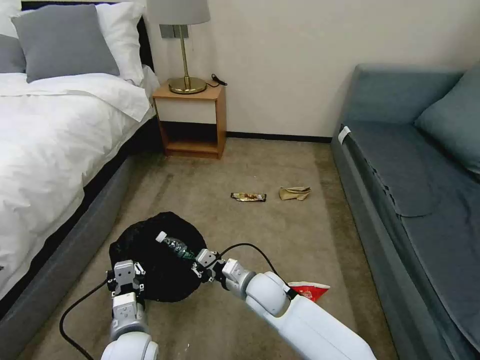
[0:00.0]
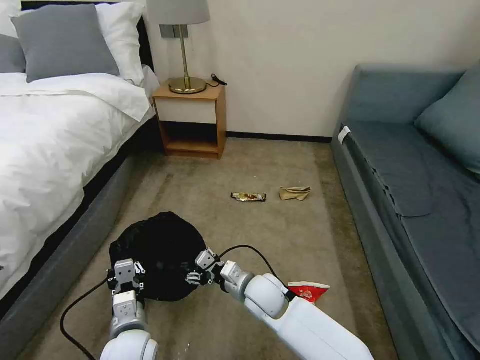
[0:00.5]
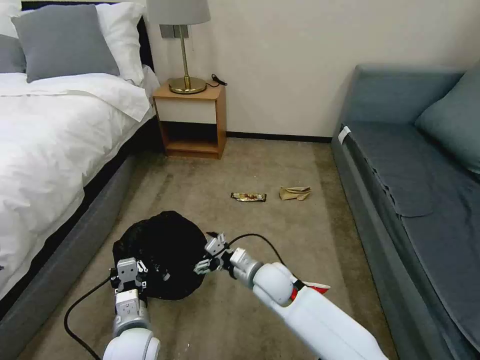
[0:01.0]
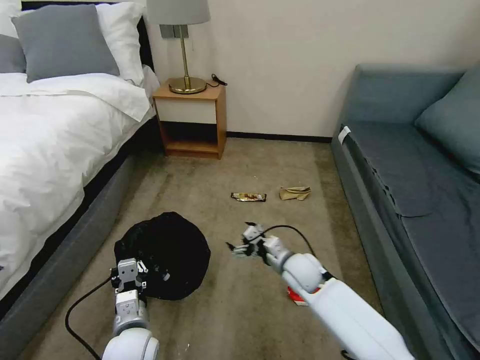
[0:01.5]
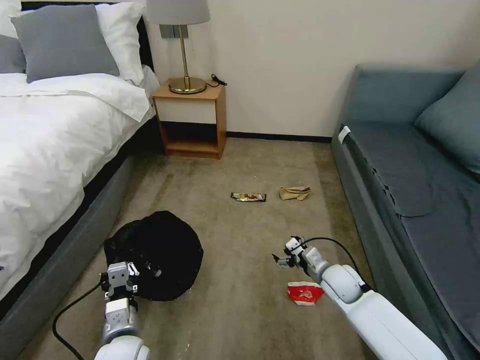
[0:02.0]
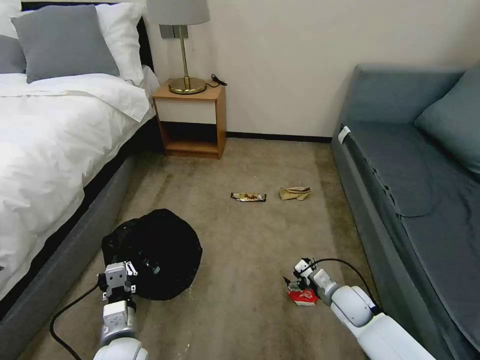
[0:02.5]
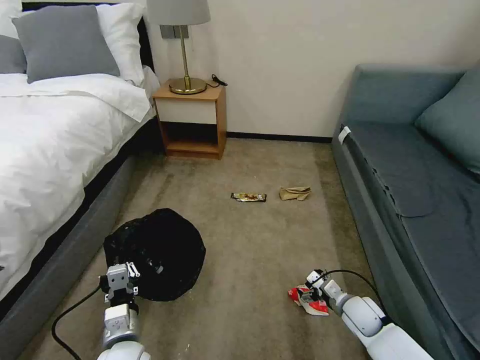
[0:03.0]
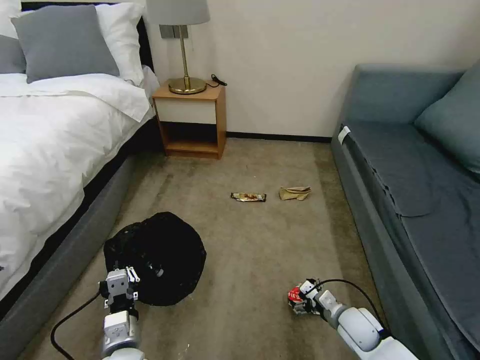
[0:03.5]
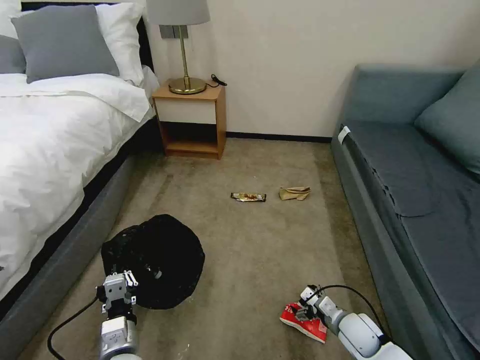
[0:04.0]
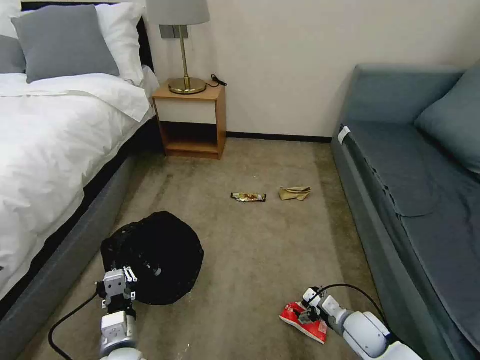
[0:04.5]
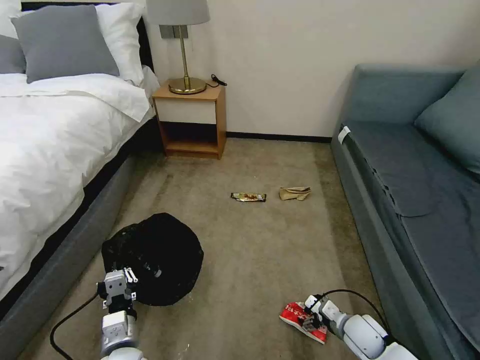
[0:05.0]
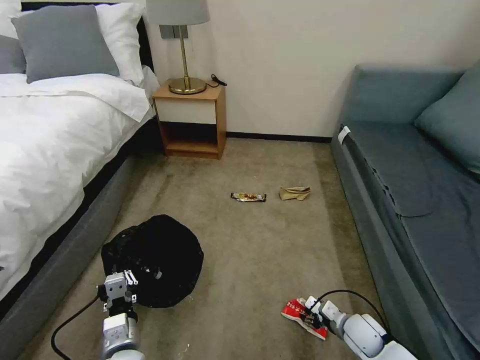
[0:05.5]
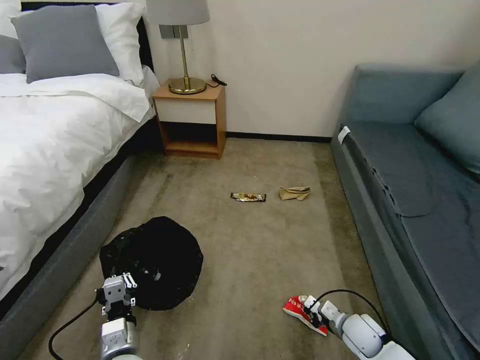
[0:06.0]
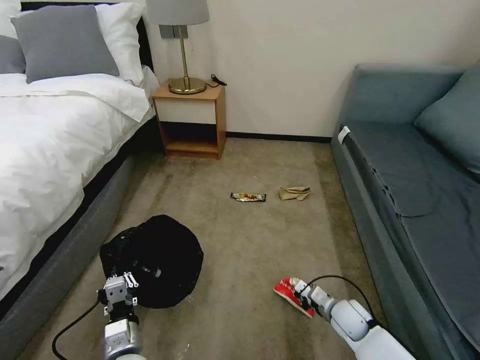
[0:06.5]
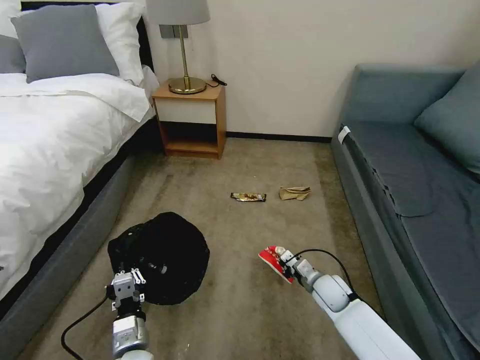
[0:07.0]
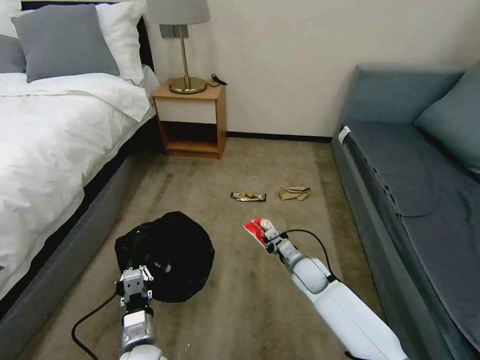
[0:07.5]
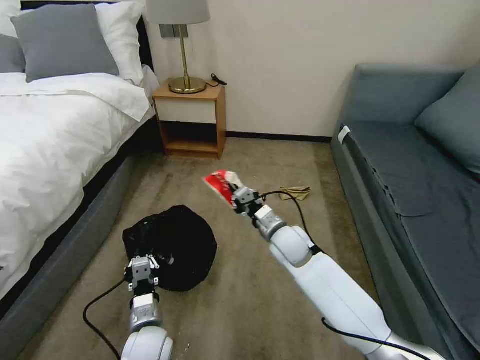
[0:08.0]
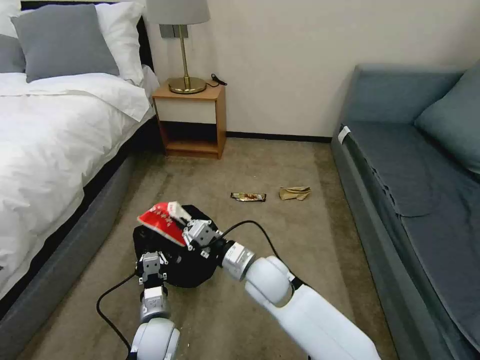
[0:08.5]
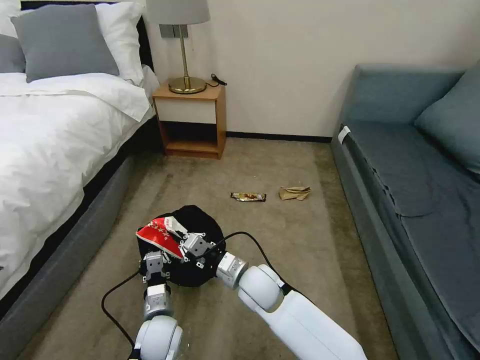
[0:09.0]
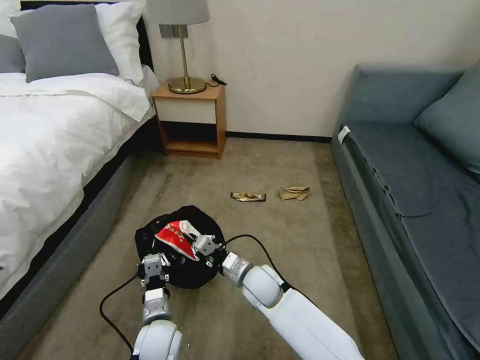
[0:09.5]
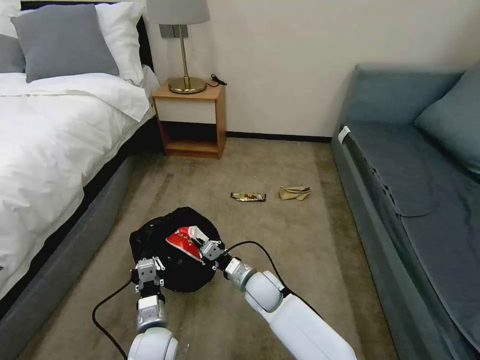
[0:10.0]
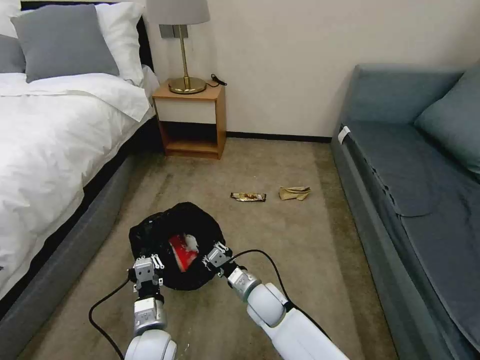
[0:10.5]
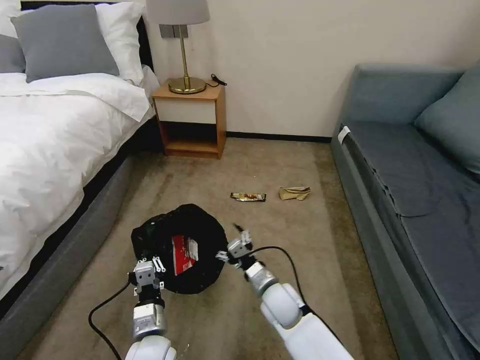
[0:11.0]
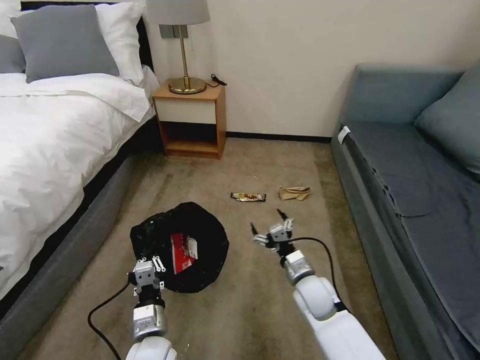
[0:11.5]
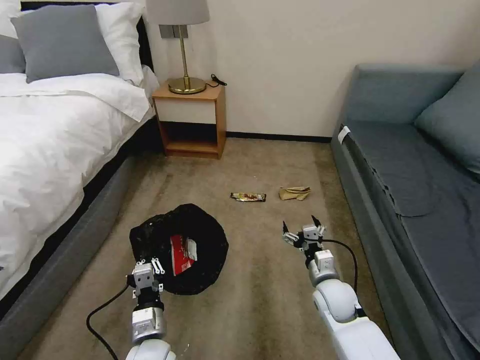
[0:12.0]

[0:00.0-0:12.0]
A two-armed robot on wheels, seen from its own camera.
Task of the whole recording: Pick up the trash bin, then pick up the garbage on the floor and place it into the trash bin.
0:00.0 to 0:02.0: The right gripper goes approximately 20 cm to the right, and opens.
0:02.0 to 0:04.0: The right gripper goes approximately 15 cm backward and downward.
0:04.0 to 0:06.0: The right gripper closes its fingers.
0:06.0 to 0:08.0: The right gripper is displaced to the left, upward and forward by some 30 cm. The left gripper goes roughly 5 cm forward.
0:08.0 to 0:10.0: The right gripper goes some 15 cm downward, backward and to the left.
0:10.0 to 0:12.0: The right gripper moves to the right, some 15 cm, and opens up.

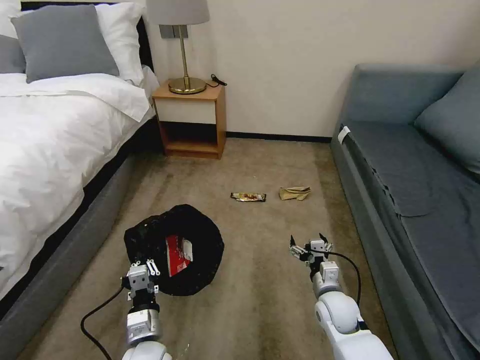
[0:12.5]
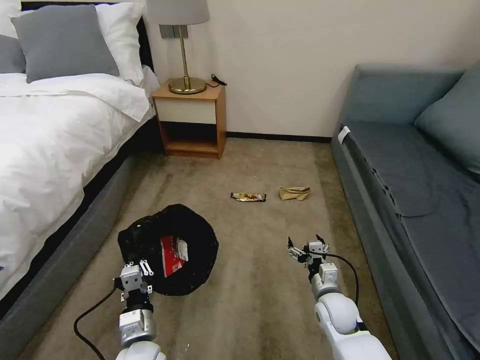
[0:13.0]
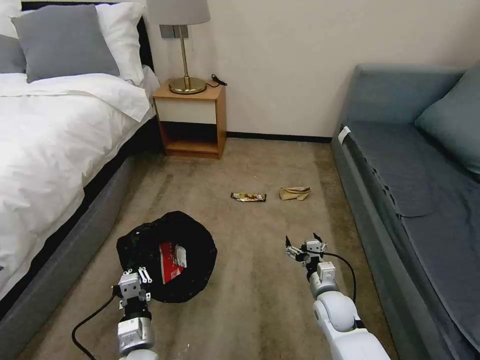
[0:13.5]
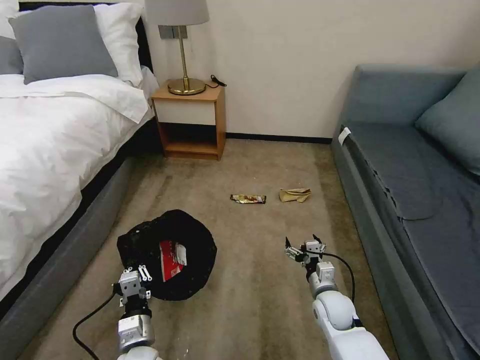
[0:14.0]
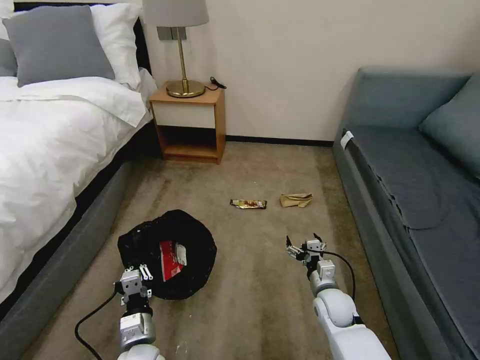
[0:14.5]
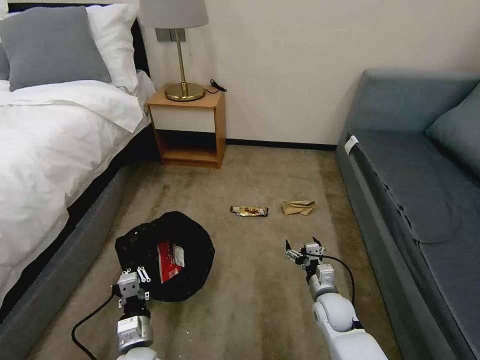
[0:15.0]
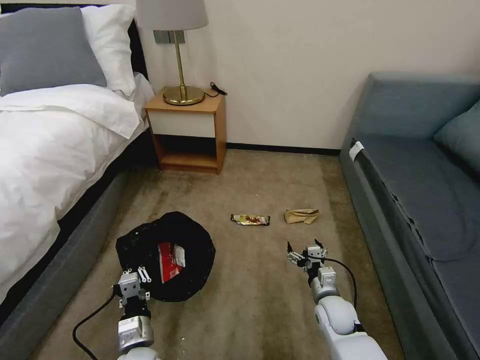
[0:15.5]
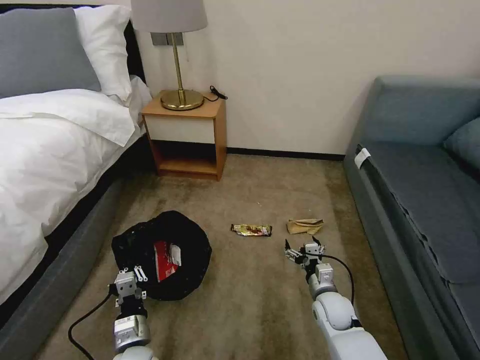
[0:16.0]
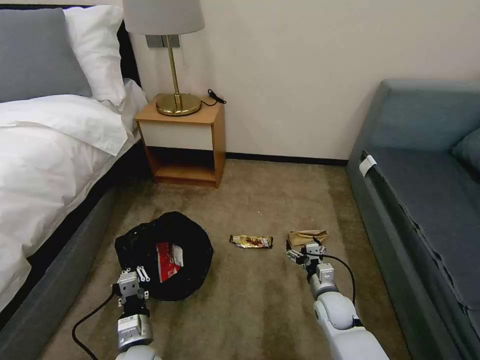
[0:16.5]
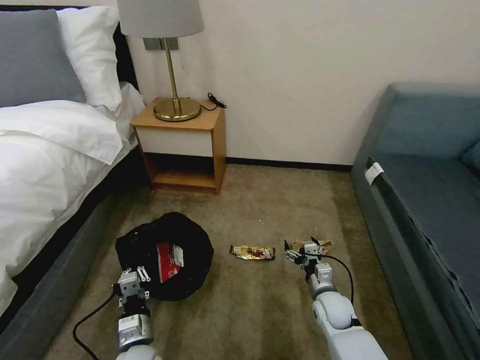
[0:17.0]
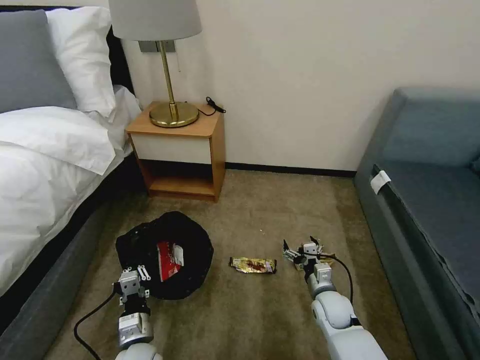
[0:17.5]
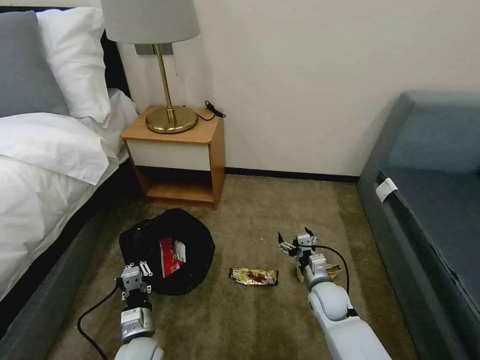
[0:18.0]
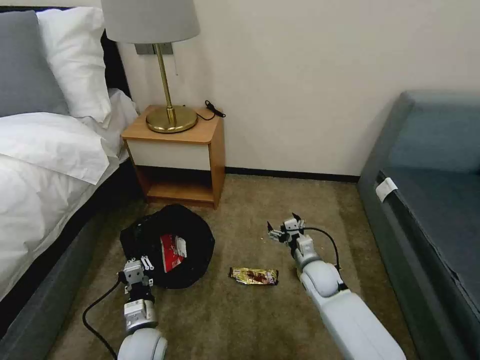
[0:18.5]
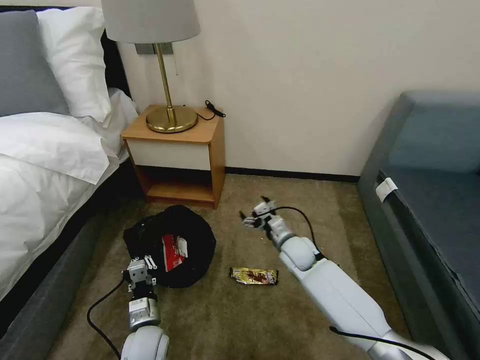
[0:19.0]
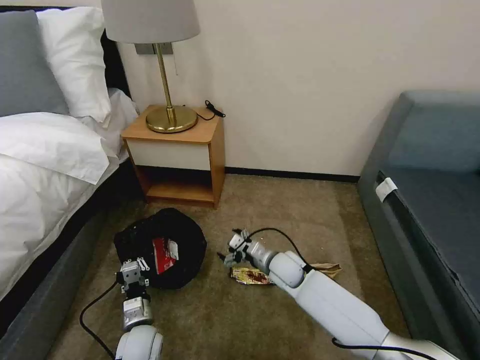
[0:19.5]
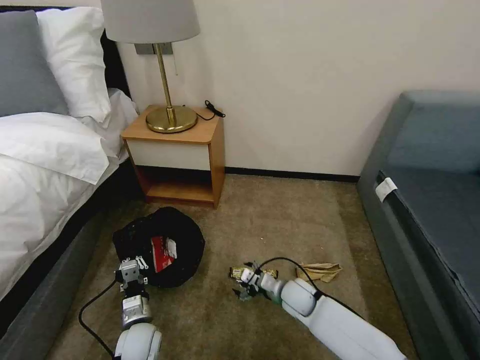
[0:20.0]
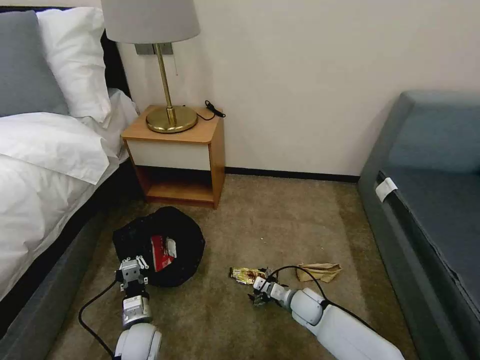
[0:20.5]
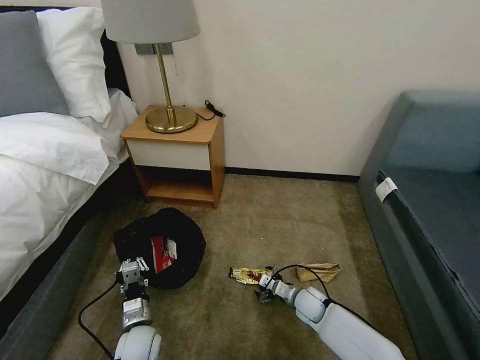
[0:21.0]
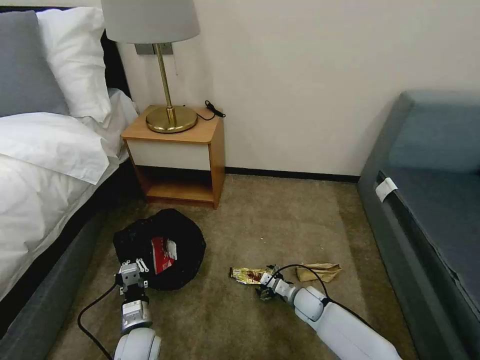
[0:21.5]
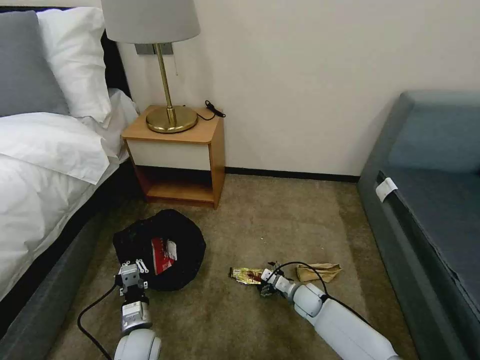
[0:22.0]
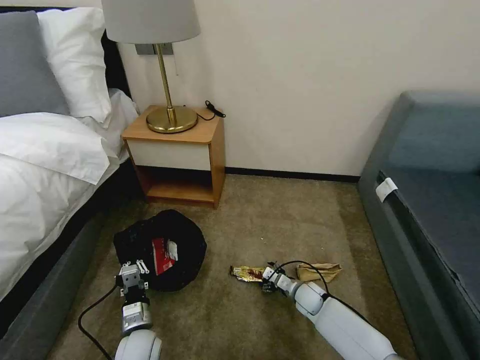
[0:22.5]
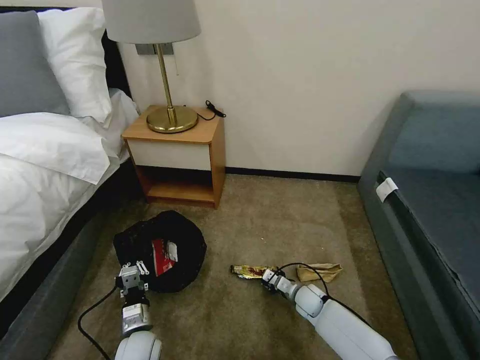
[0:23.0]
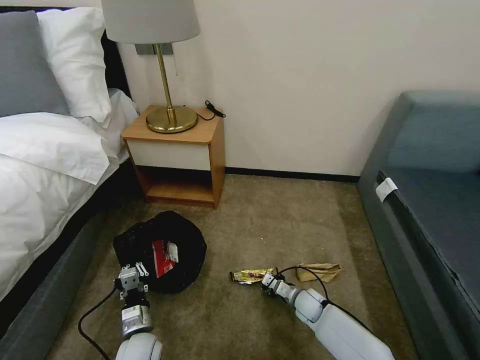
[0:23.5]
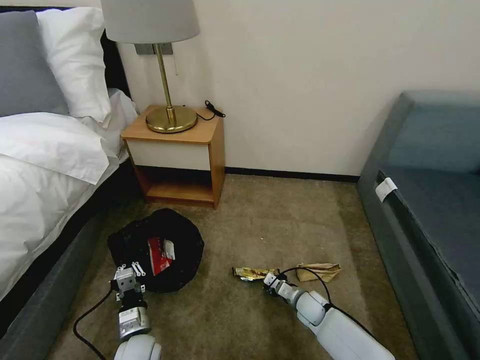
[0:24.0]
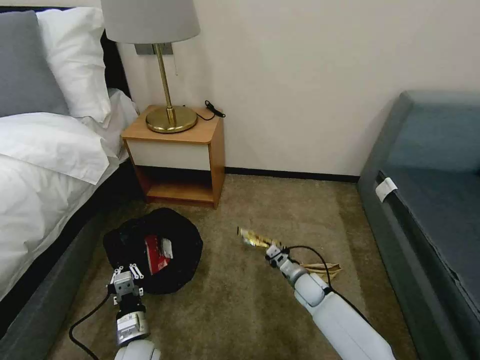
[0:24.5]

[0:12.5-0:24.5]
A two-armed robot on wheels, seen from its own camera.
Task of the whole recording: Pick up the trash bin, then pick up the garbage on the floor and place it into the trash bin.
0:12.5 to 0:14.5: The grippers make only small movements.
0:16.5 to 0:18.5: The right gripper heads forward, covering approximately 5 cm.
0:18.5 to 0:20.5: The right gripper goes about 10 cm downward.
0:20.5 to 0:22.5: The right gripper changes place by some 5 cm.
0:22.5 to 0:24.5: The right gripper closes.

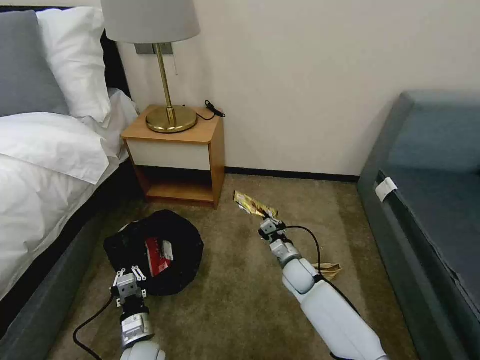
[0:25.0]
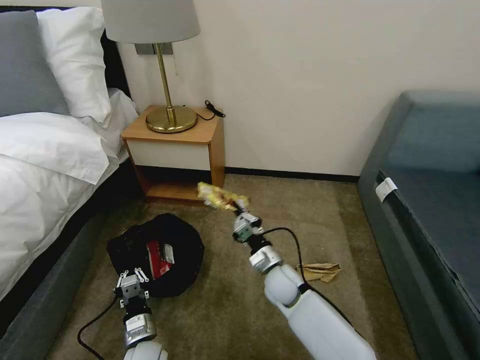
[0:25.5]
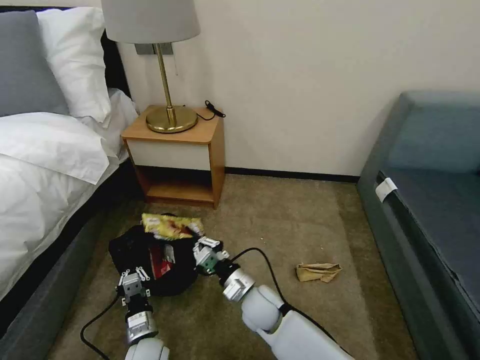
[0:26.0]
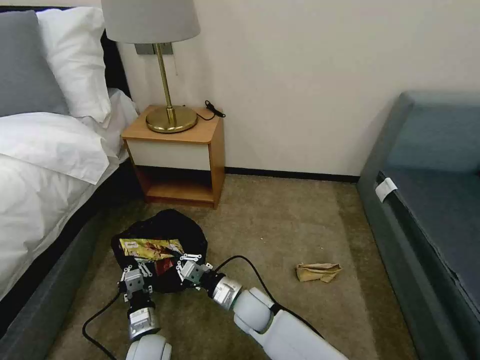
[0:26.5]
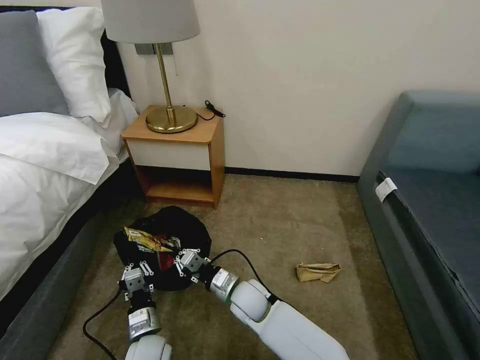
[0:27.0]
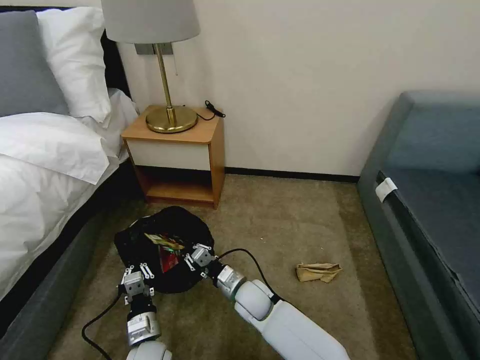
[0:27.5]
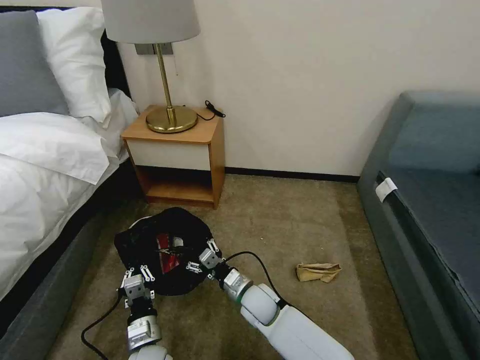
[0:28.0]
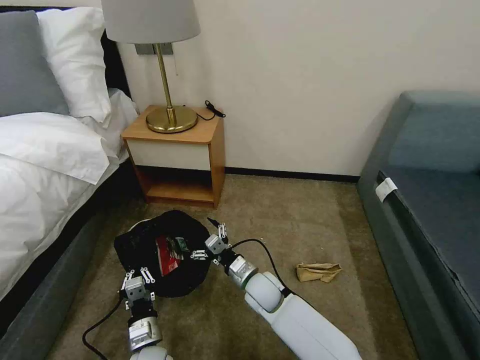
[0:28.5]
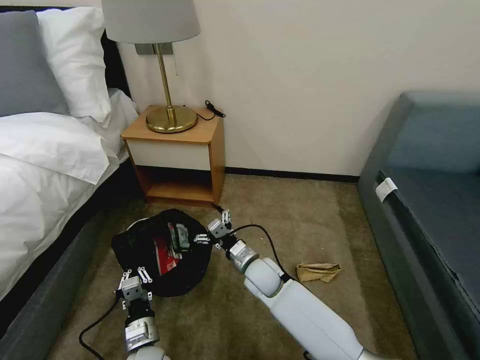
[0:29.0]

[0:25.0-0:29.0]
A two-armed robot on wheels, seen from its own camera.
Task of the whole recording: Pick up the trash bin, then pick up the garbage on the floor and place it into the trash bin.
0:25.0 to 0:27.0: The right gripper is displaced to the left and backward by roughly 15 cm.
0:27.0 to 0:29.0: The right gripper heads forward, covering roughly 5 cm, and opens its fingers.
